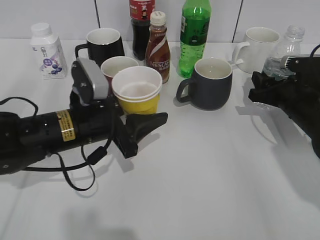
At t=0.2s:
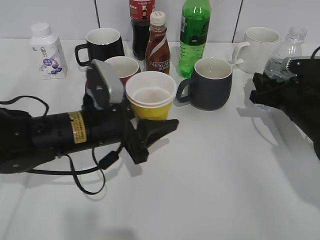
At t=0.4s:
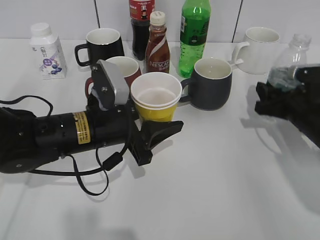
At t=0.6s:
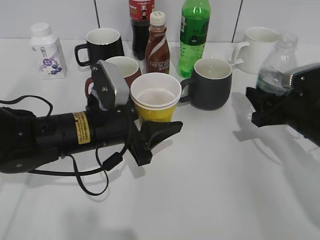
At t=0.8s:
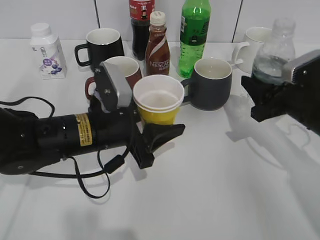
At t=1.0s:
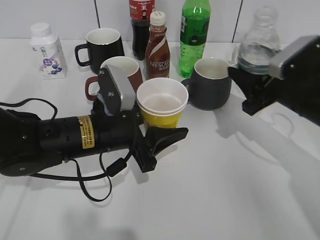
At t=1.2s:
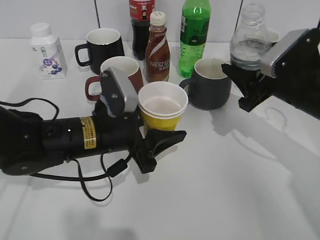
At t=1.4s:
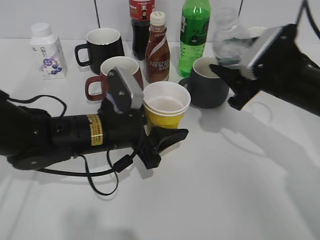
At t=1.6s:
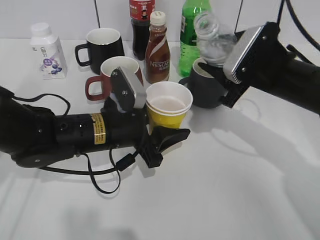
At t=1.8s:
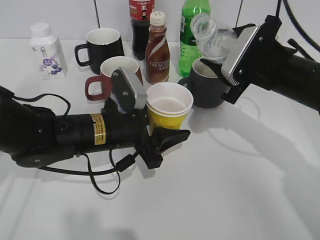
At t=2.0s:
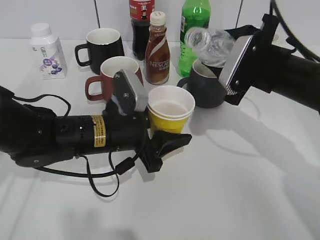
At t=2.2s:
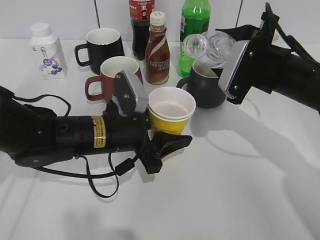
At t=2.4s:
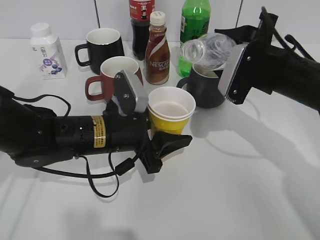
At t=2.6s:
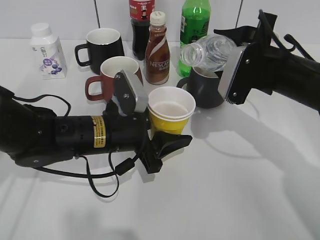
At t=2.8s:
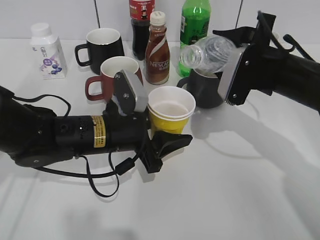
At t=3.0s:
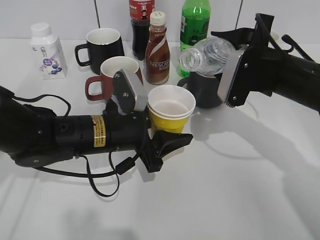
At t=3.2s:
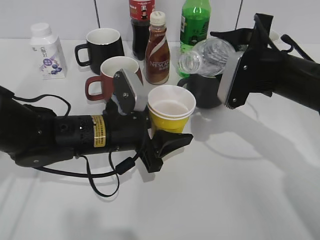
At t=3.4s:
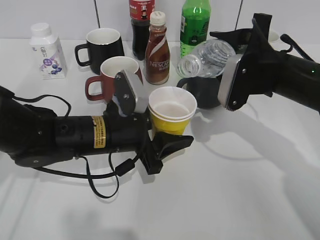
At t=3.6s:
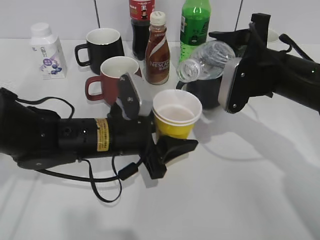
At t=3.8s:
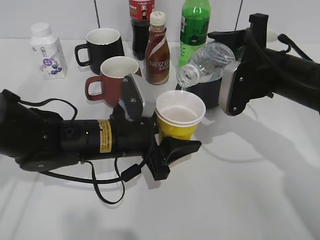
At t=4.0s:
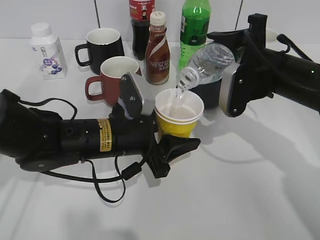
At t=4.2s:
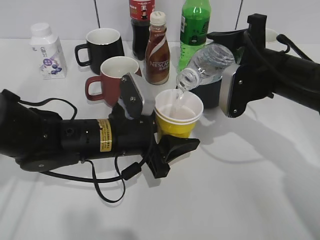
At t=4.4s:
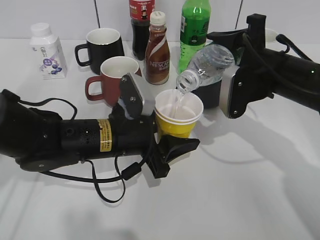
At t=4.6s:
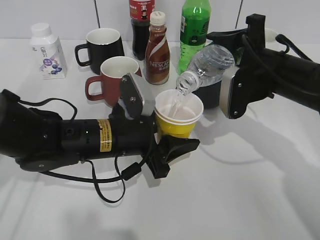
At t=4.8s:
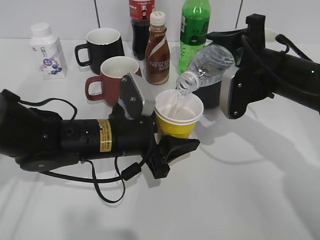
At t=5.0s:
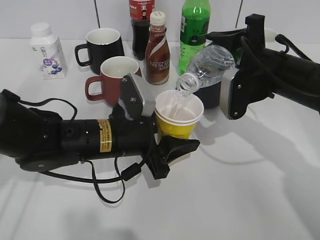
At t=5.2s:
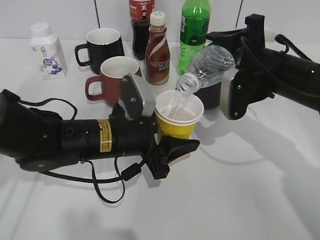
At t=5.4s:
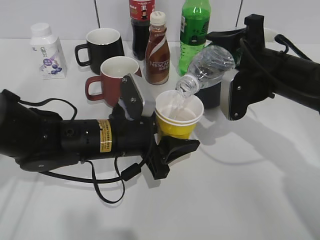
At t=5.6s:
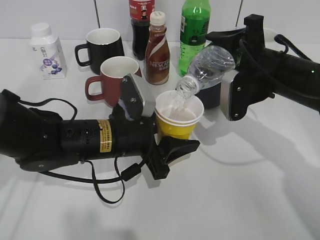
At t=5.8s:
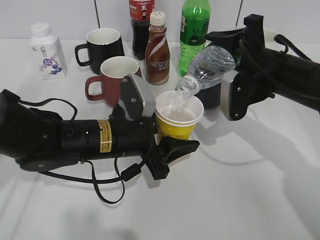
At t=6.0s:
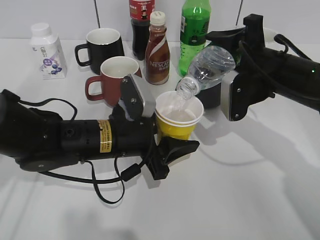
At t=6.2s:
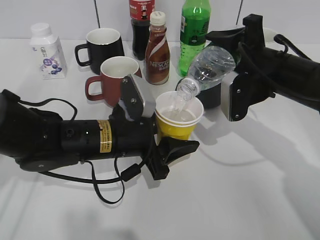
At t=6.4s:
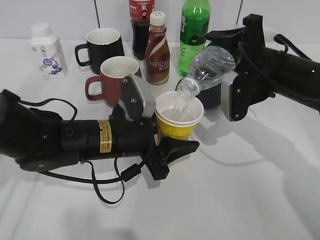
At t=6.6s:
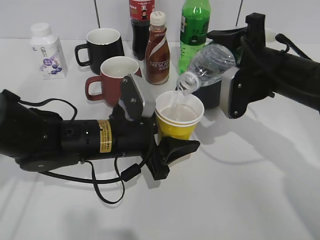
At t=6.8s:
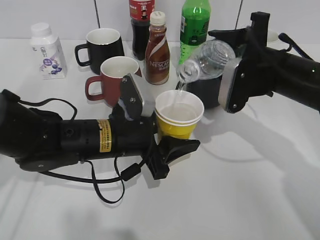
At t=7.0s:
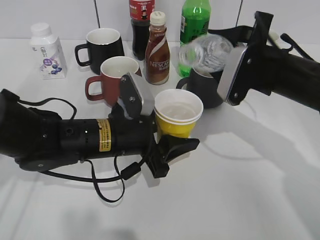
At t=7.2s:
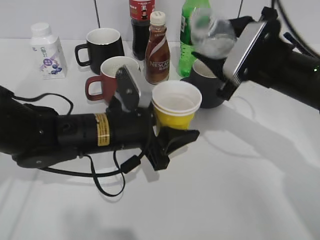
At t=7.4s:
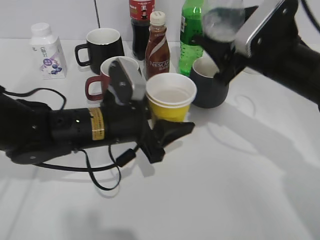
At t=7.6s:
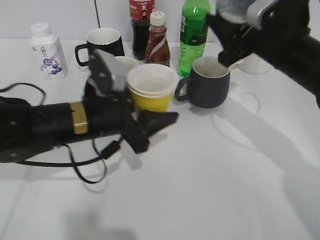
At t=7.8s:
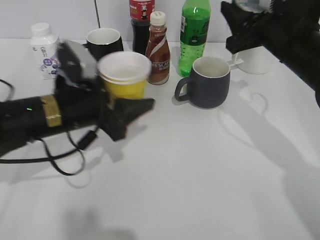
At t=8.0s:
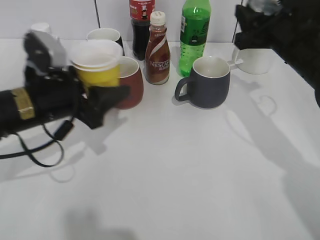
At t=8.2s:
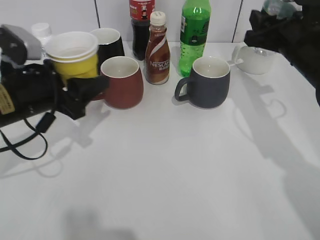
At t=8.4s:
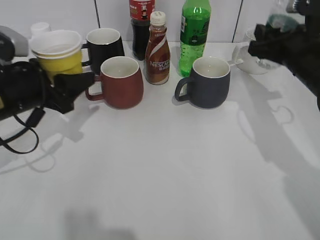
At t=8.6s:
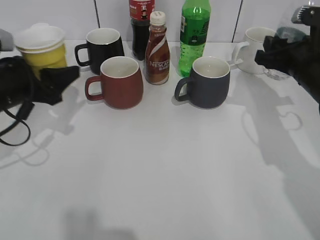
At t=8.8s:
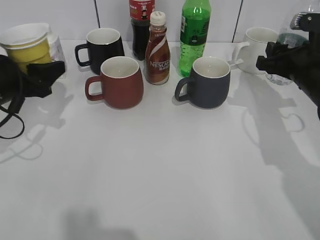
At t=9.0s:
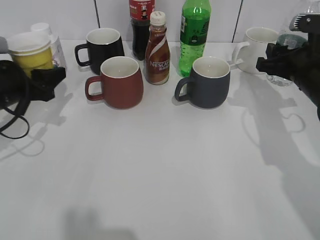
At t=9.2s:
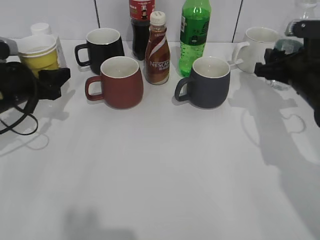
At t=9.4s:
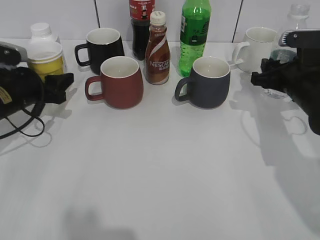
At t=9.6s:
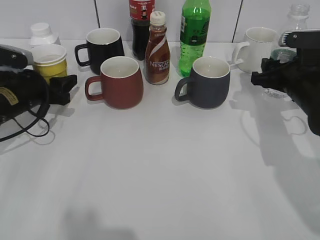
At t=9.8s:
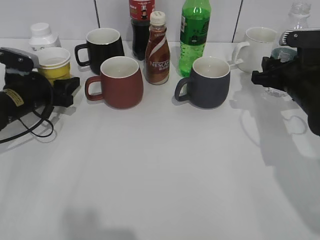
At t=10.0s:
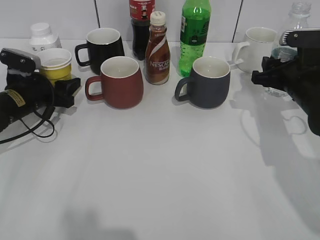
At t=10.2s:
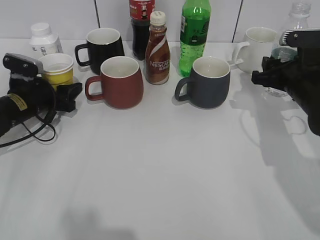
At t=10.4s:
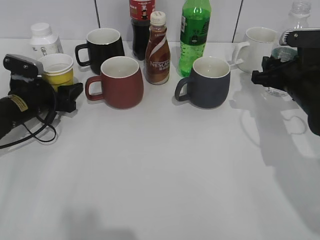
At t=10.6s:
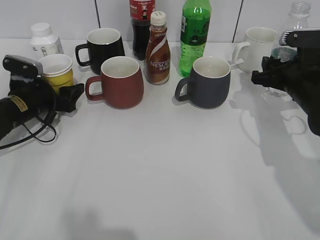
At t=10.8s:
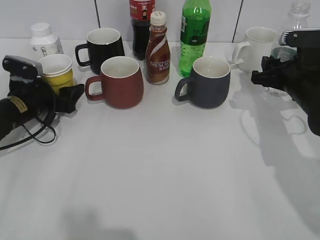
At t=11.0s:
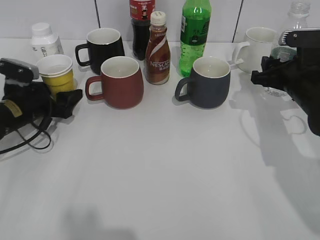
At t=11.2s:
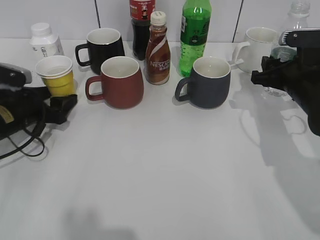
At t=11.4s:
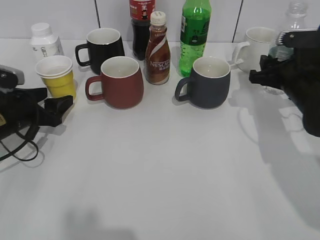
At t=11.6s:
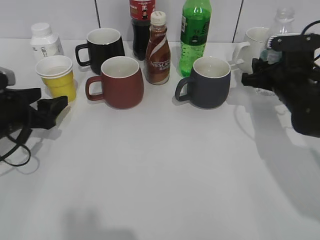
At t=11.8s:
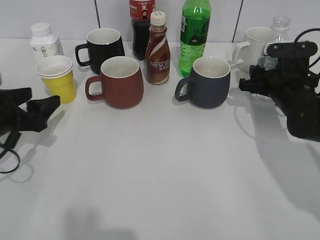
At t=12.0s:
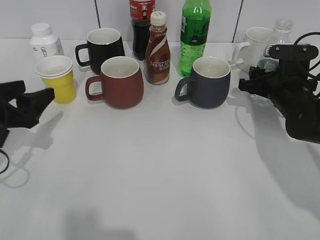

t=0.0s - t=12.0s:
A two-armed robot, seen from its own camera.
Step, t=0.0s - t=7.2s: Pour the water from bottle to cup with right gripper.
Step, t=7.4s - t=11.0s: Place the yellow paper cup on the table with left gripper.
t=0.0s - t=1.6s: The right gripper travels upward and to the left by approximately 10 cm.
t=3.0s - t=4.4s: The grippers move only a little.
t=4.4s - t=6.0s: There are only small adjustments of the grippers.
t=7.6s - t=9.0s: The right gripper travels to the right by approximately 5 cm, while the left gripper is displaced to the left by some 15 cm.
t=9.0s - t=10.4s: The left gripper goes roughly 10 cm downward and forward.
t=10.4s - t=12.0s: The left gripper is displaced backward and upward by roughly 15 cm, and opens.

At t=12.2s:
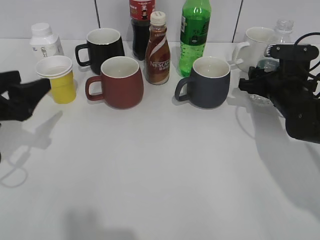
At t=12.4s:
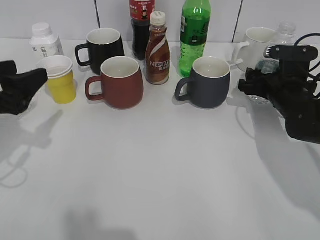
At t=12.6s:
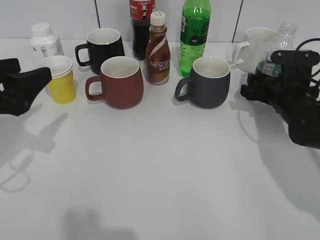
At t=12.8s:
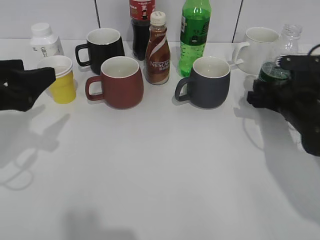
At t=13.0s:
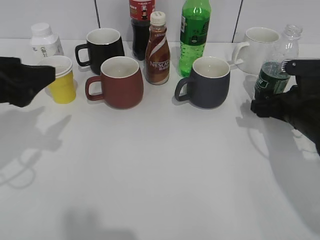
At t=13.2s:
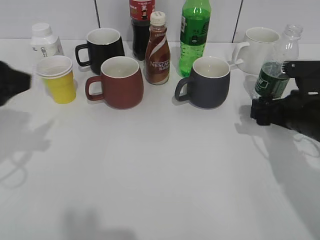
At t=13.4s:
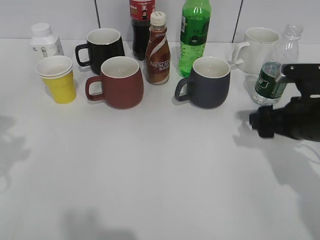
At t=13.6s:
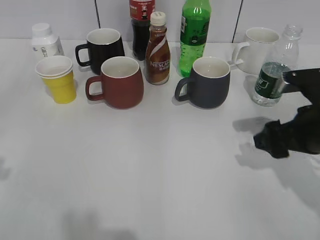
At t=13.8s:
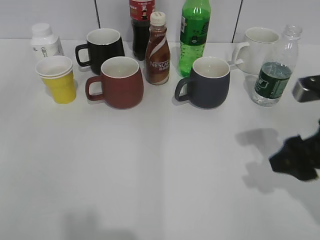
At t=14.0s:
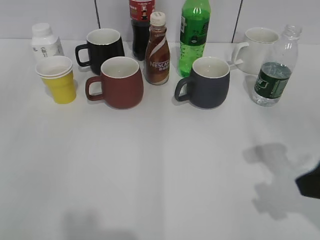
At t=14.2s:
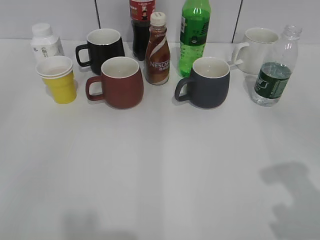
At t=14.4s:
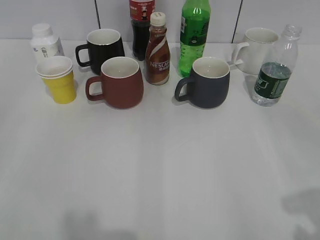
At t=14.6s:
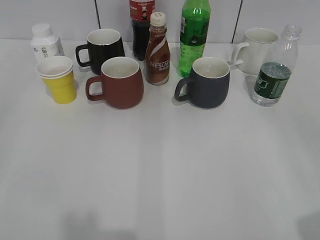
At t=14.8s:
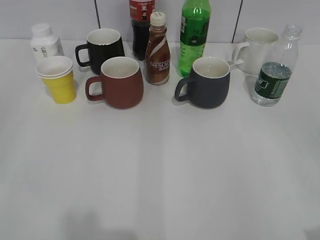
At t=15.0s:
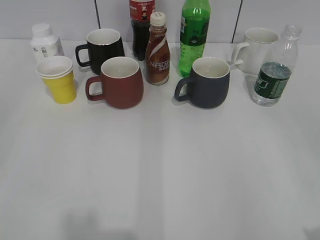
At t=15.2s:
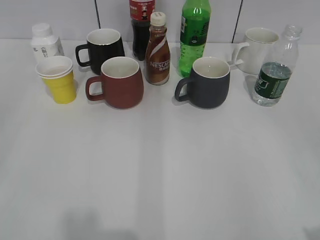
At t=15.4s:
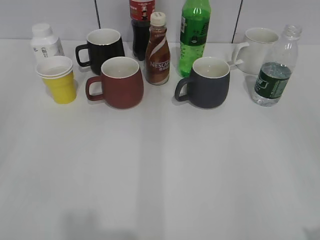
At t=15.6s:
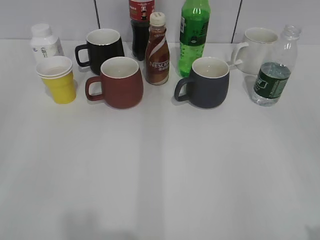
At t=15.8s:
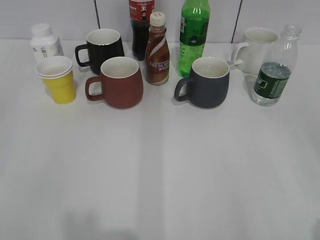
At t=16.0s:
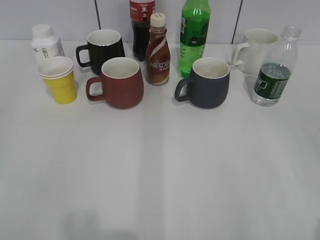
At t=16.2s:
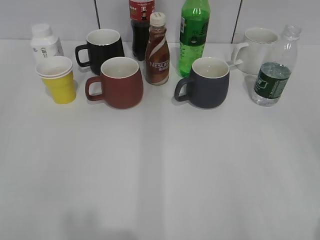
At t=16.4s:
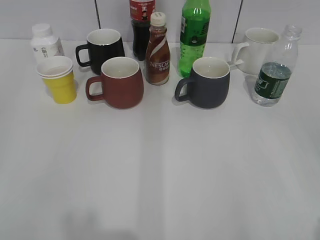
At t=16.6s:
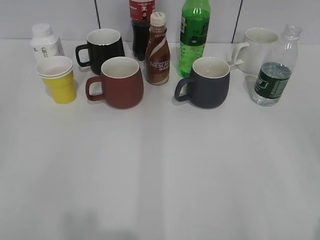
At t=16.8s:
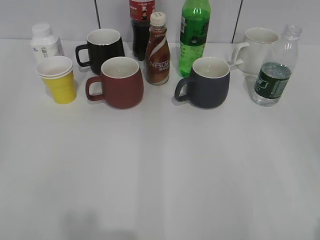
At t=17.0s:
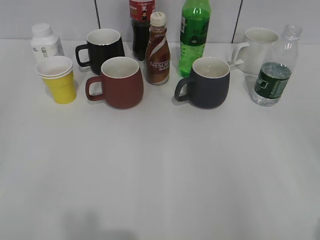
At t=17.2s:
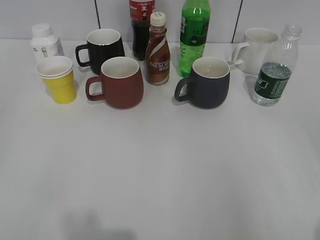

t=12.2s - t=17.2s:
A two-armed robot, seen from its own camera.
t=12.2s - t=13.8s: The left gripper is displaced upward and backward by about 20 cm; the right gripper travels backward and upward by approximately 15 cm, and opens up.
t=13.8s - t=15.6s: The right gripper travels backward and upward by roughly 20 cm.
t=15.6s - t=17.2s: The grippers stay close to where they were, moving slightly.
